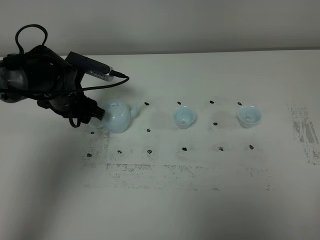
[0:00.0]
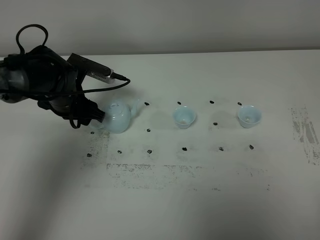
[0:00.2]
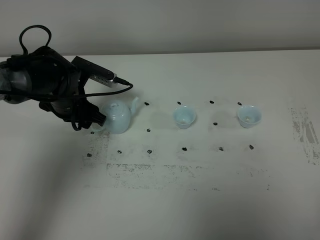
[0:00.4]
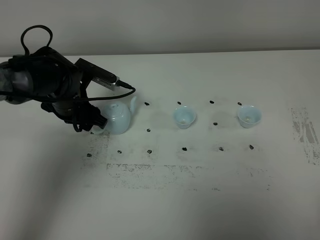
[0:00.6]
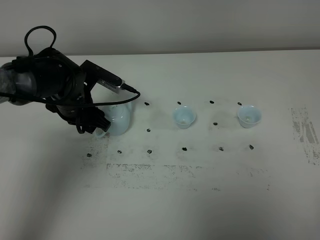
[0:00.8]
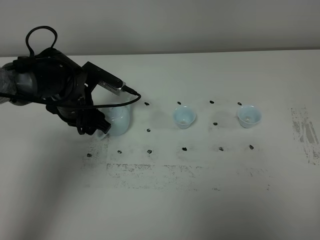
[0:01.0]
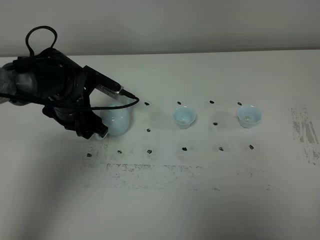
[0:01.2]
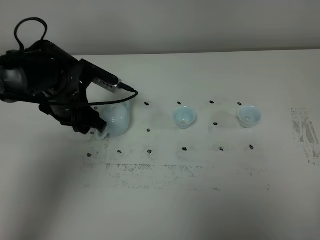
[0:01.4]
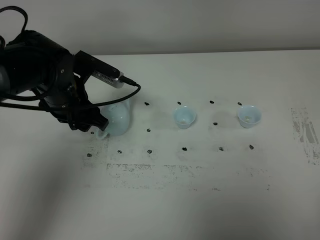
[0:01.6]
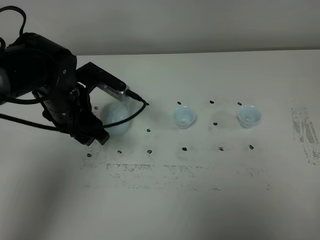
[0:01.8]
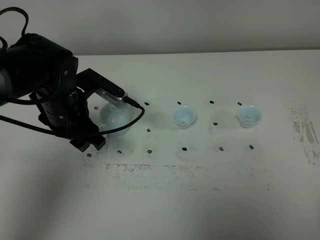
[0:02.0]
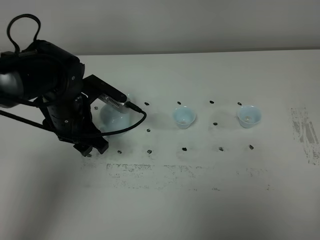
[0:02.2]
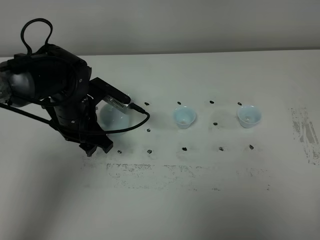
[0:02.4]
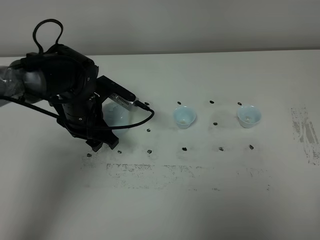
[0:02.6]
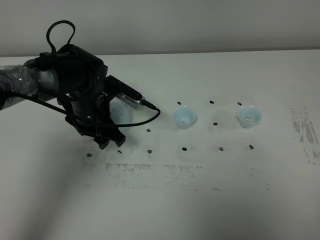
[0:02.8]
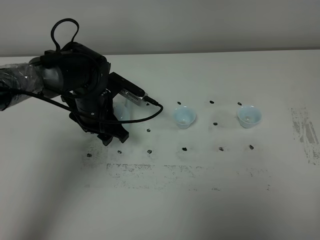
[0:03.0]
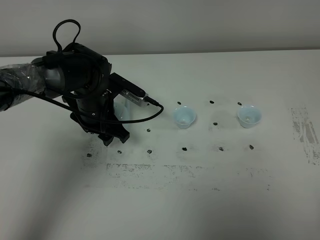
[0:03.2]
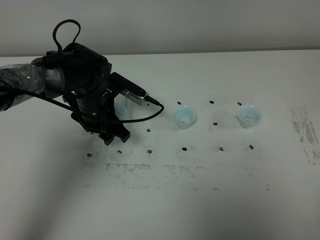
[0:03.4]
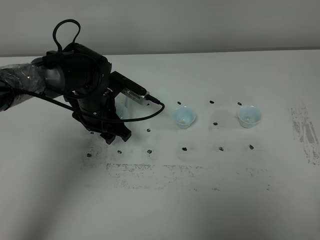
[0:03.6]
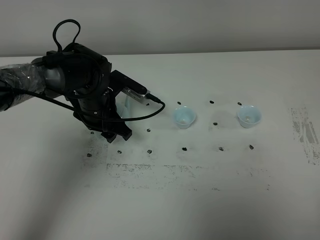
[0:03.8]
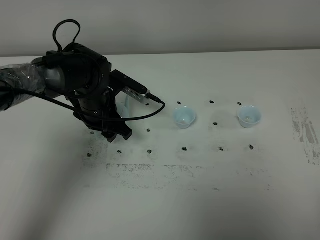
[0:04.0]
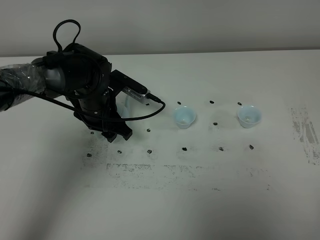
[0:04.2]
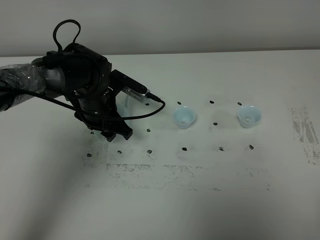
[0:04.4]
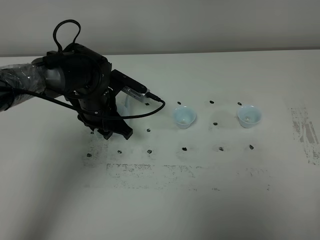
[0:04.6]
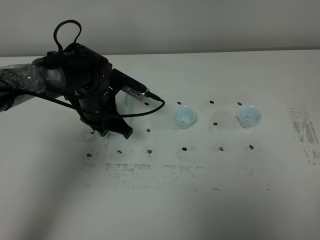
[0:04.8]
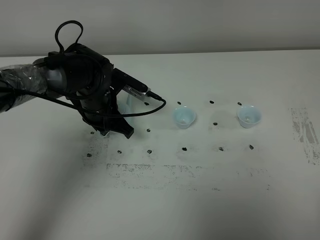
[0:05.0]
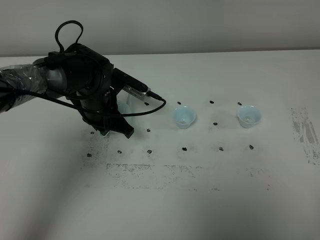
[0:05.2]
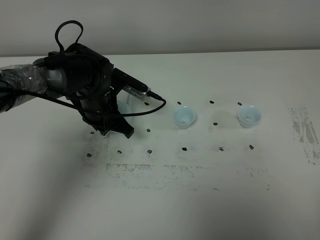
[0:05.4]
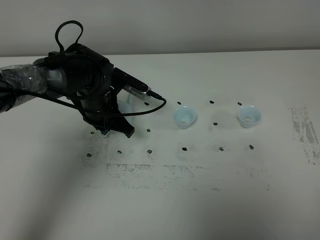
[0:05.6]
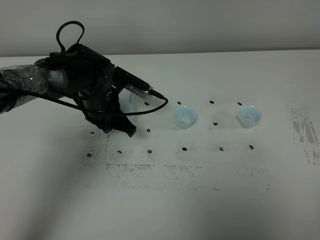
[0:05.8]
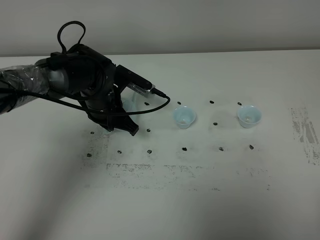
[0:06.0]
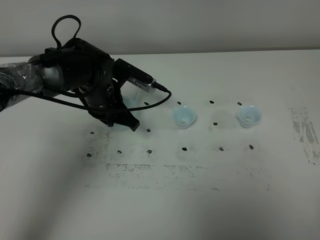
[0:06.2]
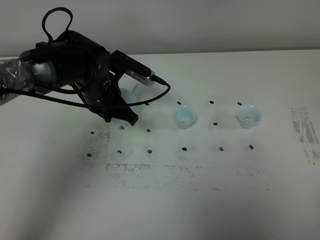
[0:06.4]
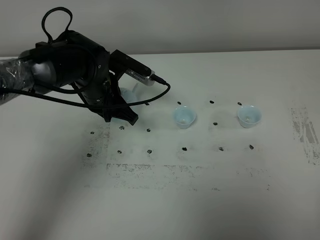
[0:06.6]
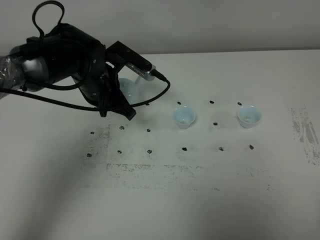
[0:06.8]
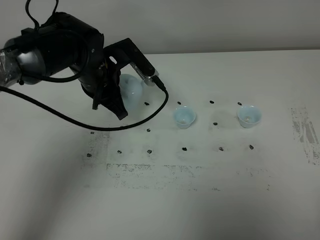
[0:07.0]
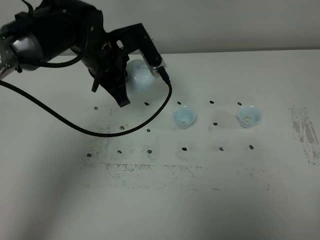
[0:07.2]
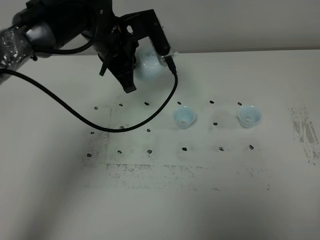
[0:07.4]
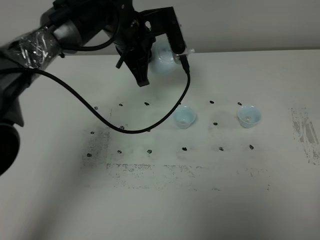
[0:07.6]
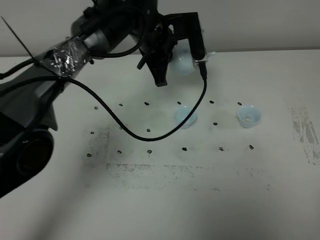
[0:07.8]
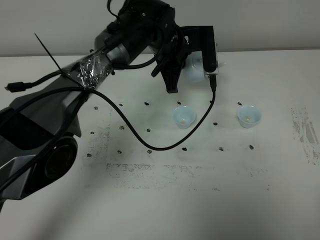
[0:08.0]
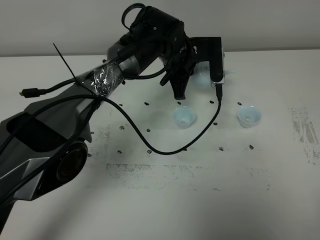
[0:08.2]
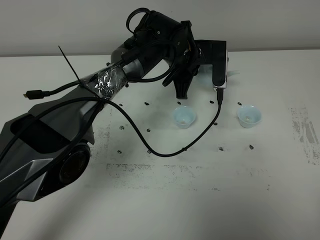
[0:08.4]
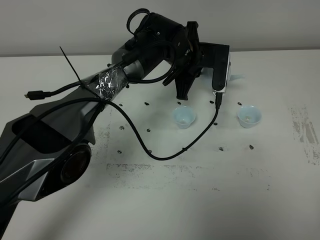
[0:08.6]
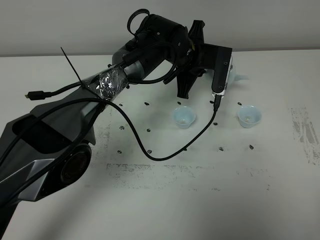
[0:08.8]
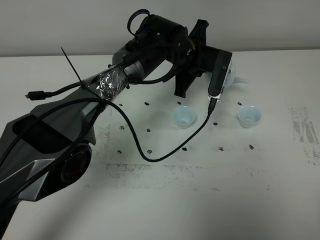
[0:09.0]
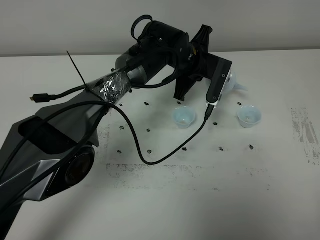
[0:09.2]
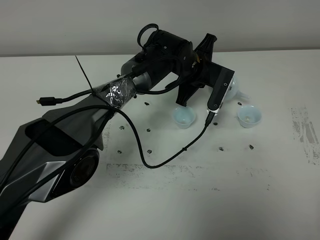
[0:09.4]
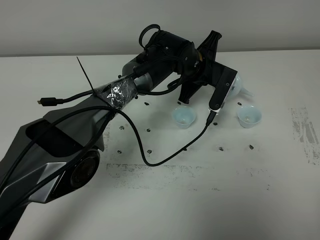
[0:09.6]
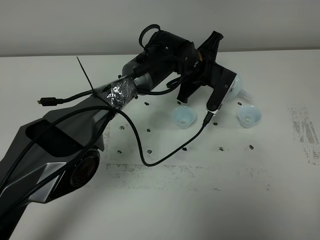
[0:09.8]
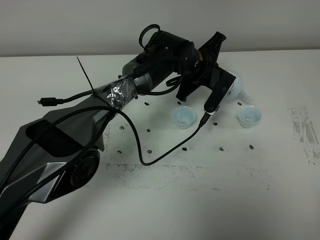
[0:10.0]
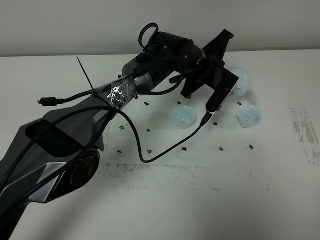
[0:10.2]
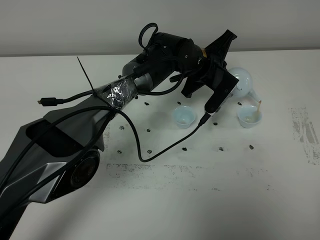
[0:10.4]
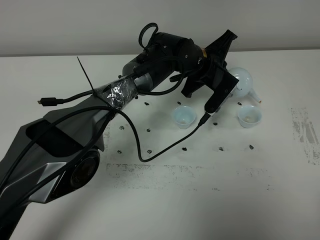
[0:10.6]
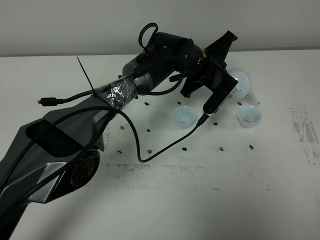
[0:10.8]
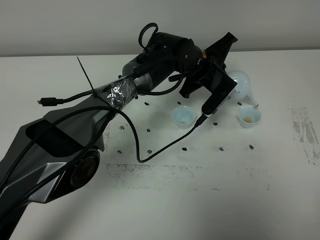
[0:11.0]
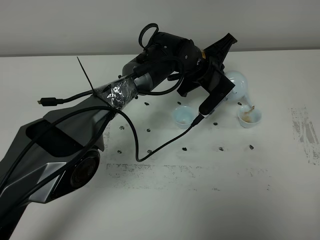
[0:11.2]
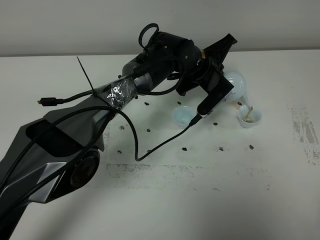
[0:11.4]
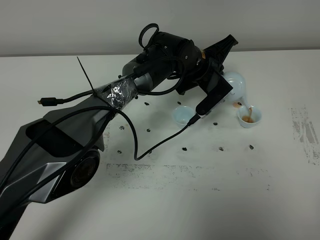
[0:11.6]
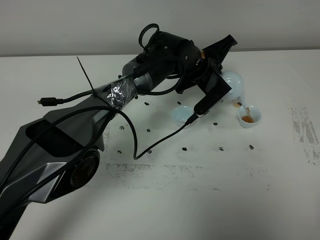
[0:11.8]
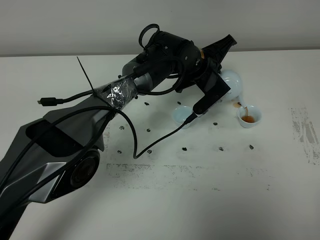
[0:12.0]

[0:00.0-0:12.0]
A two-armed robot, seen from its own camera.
Task of the whole recording: grasp the blue porcelain teapot and pour the tea into the two blue porcelain teacups one by one, put the blue porcelain teapot back in its original place.
Step, 0:00.0 to 0:06.2: Pick up the teapot with the left gripper.
0:00.0 to 0:01.6: The left gripper is displaced upward by approximately 5 cm.
0:01.6 to 0:03.0: The left gripper goes approximately 5 cm downward.
0:03.0 to 0:04.4: Neither gripper changes place.
0:04.4 to 0:06.0: The left gripper closes its fingers.
0:06.0 to 0:07.6: The left gripper heads upward, to the right and forward, covering approximately 15 cm.
0:07.6 to 0:09.0: The left gripper heads to the right and downward, covering about 10 cm.
0:10.4 to 0:12.0: There are only small adjustments of the grippers.

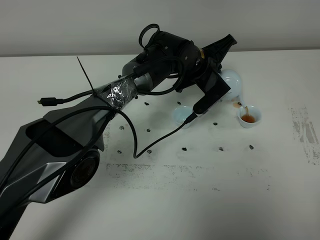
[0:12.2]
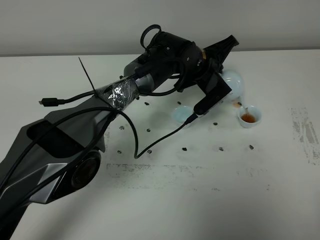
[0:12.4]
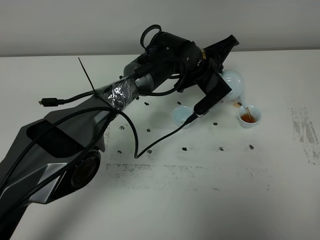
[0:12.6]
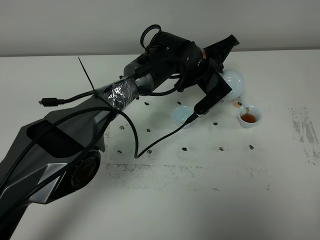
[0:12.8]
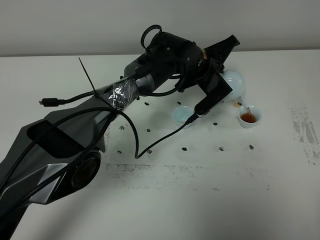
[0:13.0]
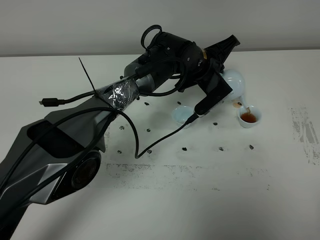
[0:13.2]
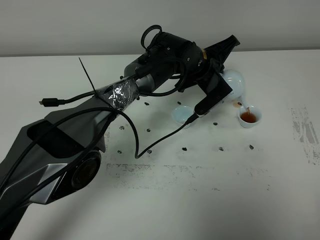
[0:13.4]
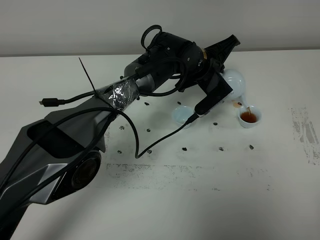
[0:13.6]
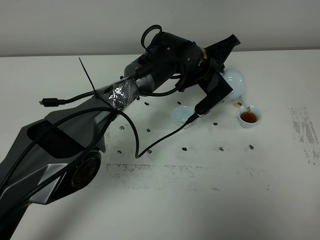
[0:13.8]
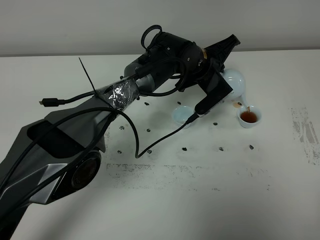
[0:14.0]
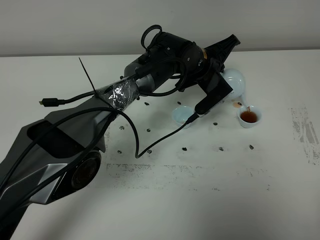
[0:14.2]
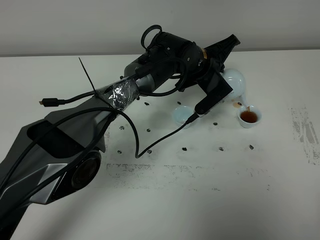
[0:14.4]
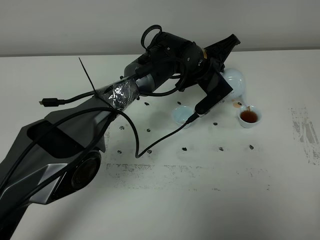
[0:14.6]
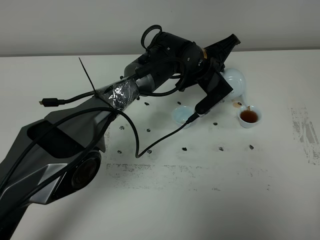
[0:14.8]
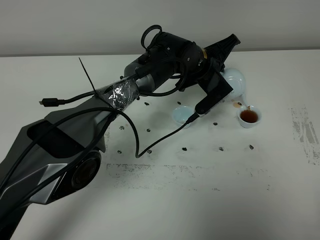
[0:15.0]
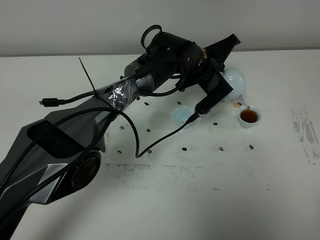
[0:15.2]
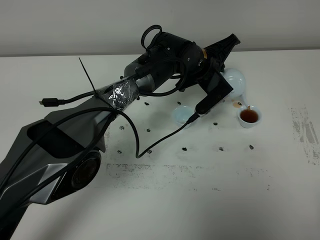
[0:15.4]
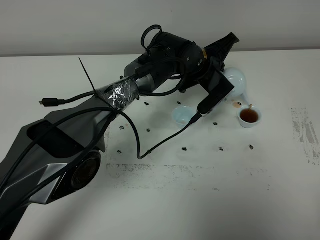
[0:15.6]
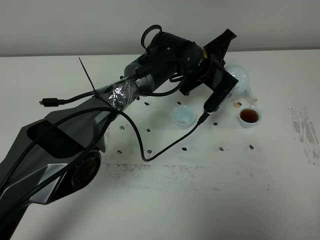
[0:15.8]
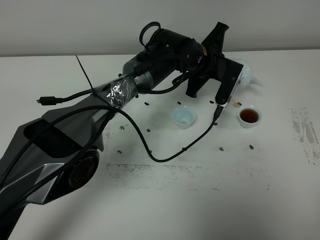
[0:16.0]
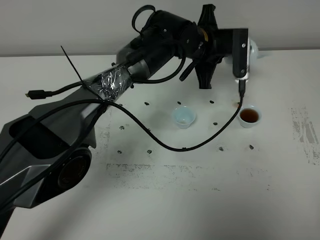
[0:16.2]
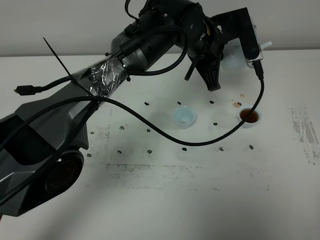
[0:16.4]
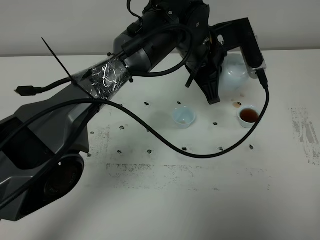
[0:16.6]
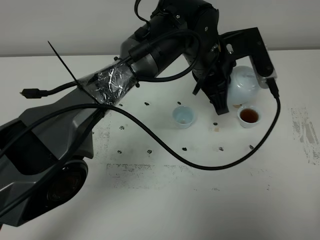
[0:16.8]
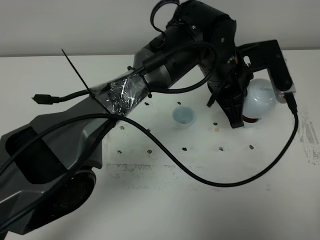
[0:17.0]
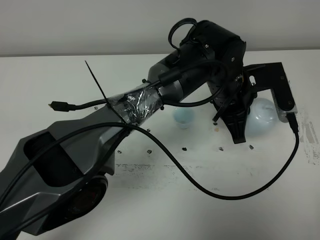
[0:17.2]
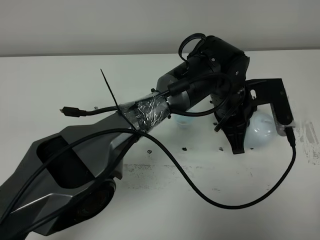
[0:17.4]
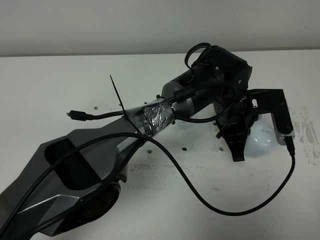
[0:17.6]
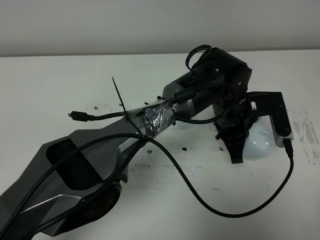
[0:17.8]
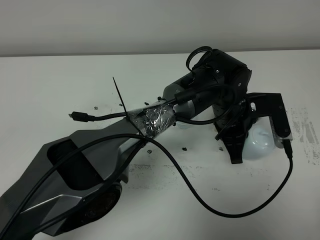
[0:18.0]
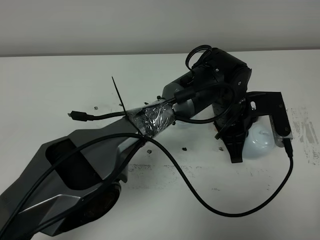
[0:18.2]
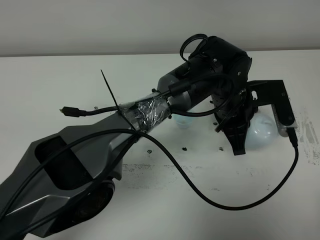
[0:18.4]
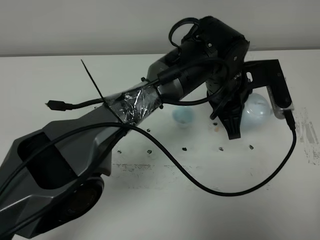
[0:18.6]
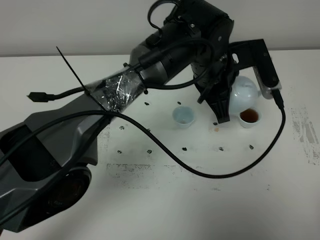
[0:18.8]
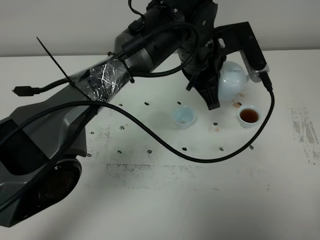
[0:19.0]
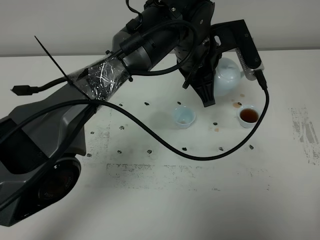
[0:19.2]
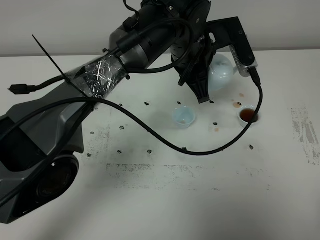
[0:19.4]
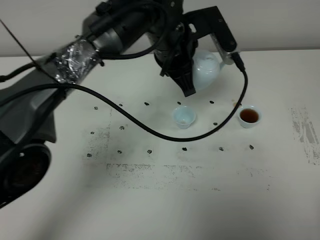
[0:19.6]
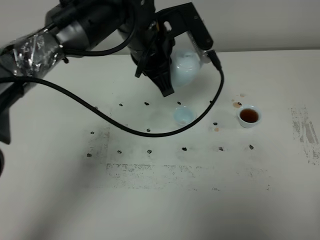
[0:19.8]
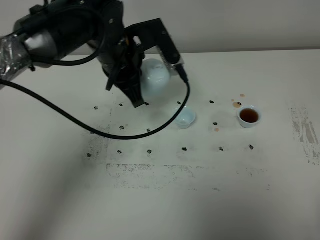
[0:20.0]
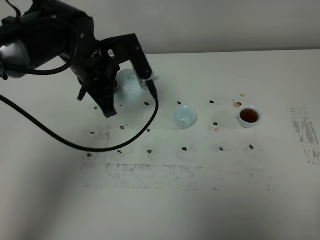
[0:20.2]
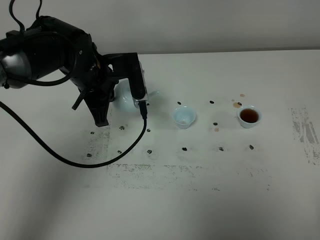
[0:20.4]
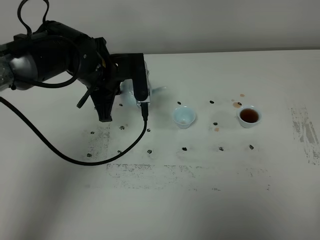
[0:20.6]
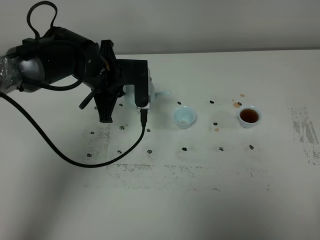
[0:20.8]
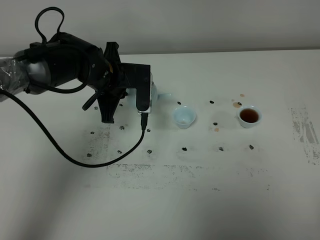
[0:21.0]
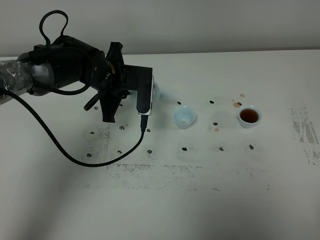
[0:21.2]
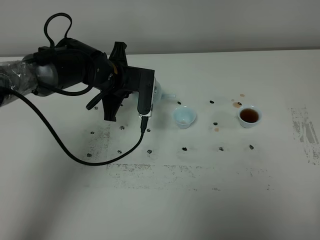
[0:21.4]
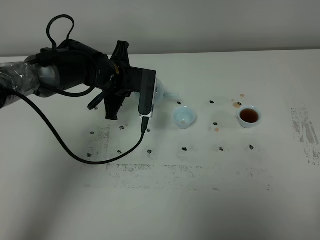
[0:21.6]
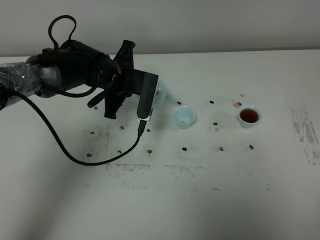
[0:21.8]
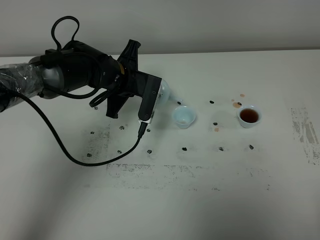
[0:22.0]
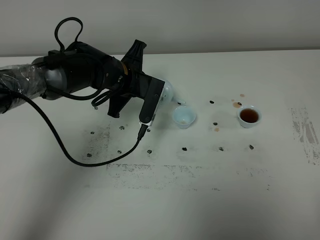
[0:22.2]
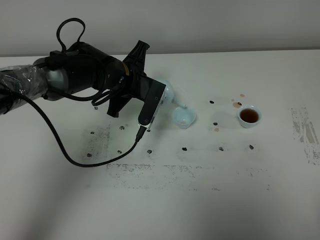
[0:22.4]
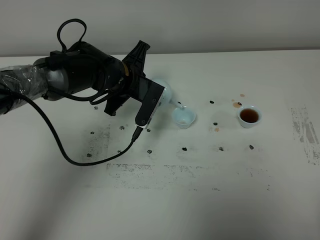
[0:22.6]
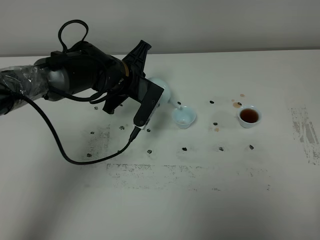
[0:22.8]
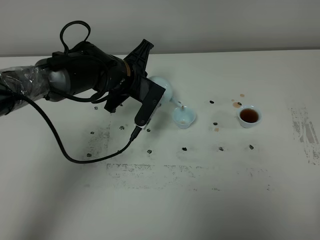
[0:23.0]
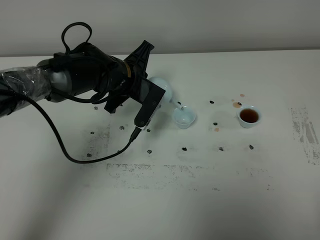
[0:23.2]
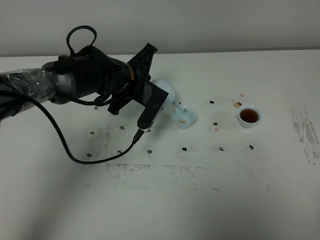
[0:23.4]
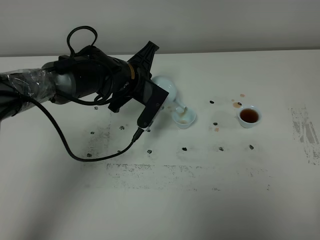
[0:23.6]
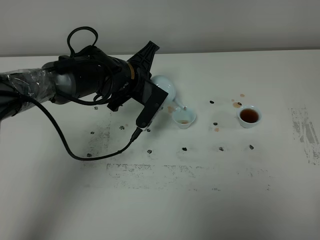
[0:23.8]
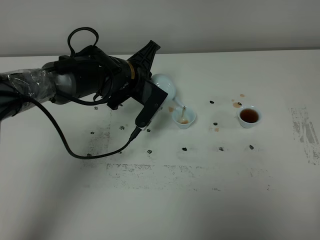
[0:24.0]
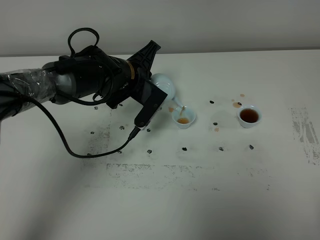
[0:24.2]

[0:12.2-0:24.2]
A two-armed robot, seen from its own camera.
Task of the whole recording: grasp the blue porcelain teapot and pour the tea into the two blue porcelain teacups one by one, put the blue porcelain teapot back in its original place.
0:12.2 to 0:15.2: Both grippers stay about where they are.
0:15.2 to 0:16.6: The left gripper travels upward and backward by about 10 cm.
0:16.6 to 0:18.2: The left gripper goes about 10 cm downward and to the right.
0:18.2 to 0:19.8: The left gripper shifts some 20 cm to the left and upward.
0:19.8 to 0:21.2: The left gripper travels downward and to the left by approximately 15 cm.
0:22.6 to 0:24.2: The grippers move only a little.
